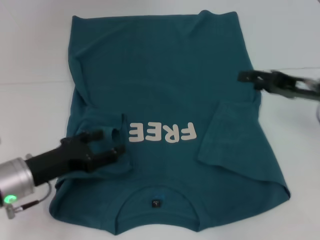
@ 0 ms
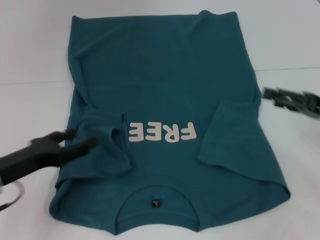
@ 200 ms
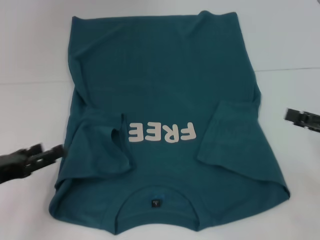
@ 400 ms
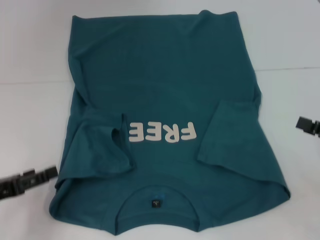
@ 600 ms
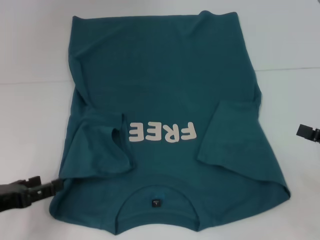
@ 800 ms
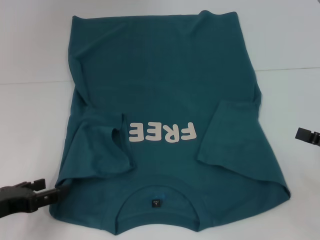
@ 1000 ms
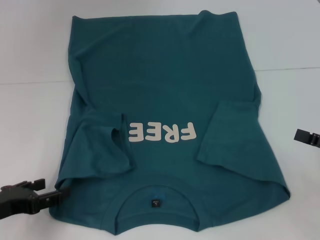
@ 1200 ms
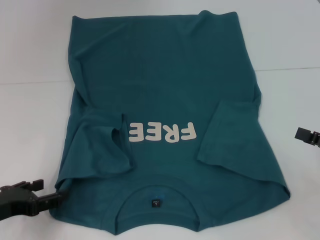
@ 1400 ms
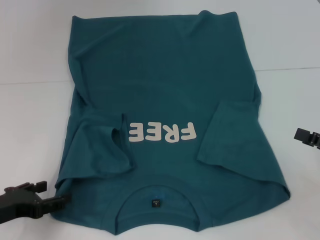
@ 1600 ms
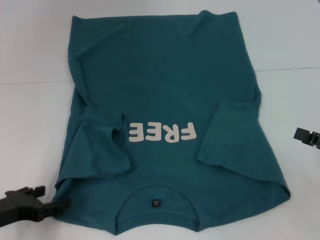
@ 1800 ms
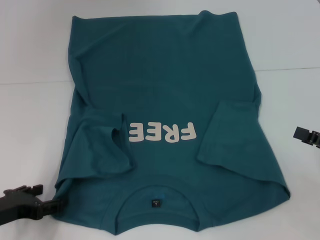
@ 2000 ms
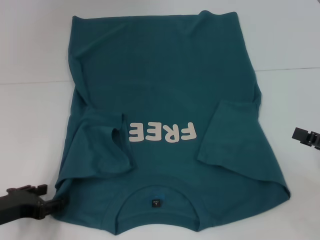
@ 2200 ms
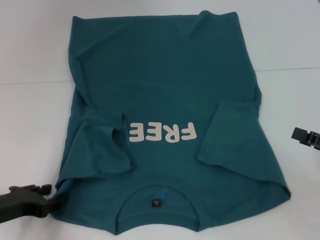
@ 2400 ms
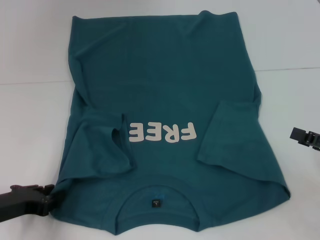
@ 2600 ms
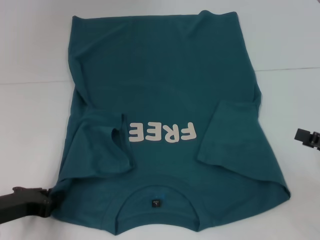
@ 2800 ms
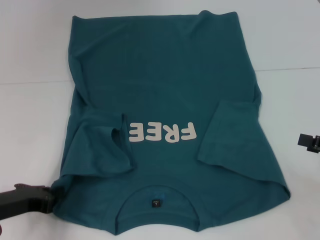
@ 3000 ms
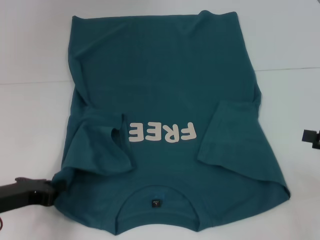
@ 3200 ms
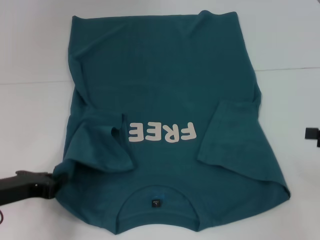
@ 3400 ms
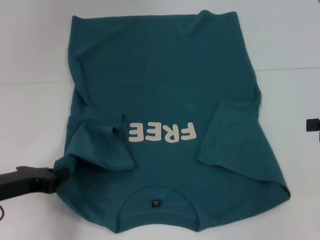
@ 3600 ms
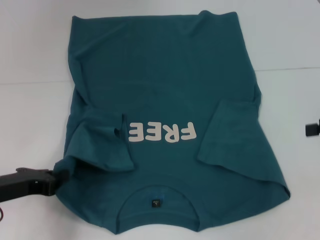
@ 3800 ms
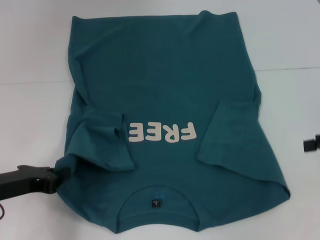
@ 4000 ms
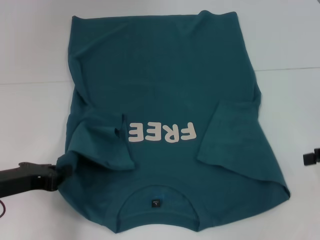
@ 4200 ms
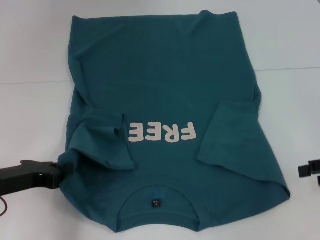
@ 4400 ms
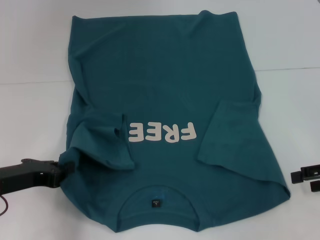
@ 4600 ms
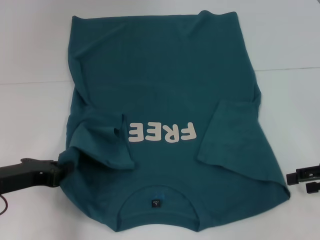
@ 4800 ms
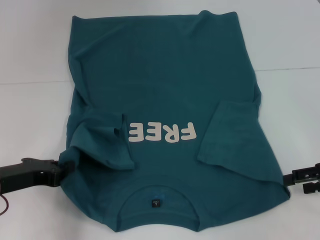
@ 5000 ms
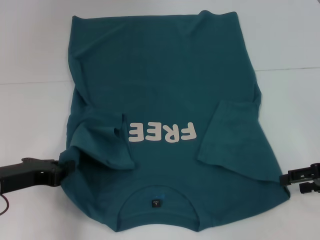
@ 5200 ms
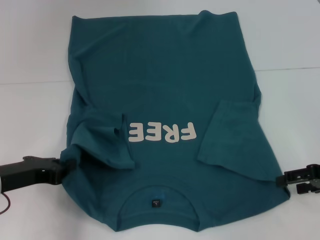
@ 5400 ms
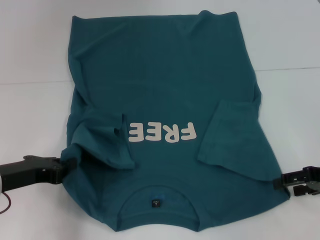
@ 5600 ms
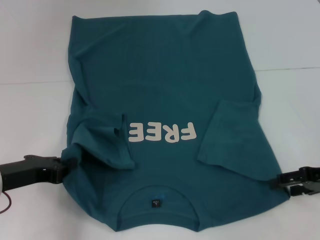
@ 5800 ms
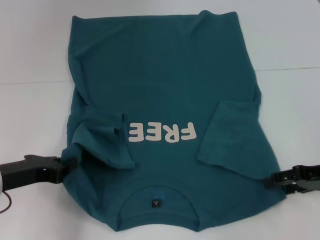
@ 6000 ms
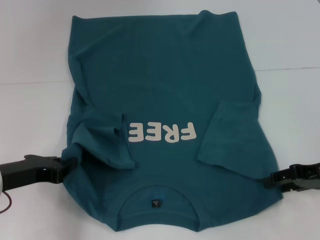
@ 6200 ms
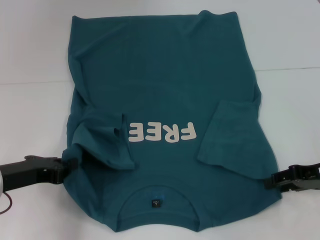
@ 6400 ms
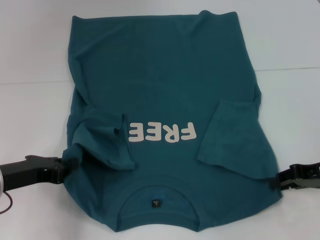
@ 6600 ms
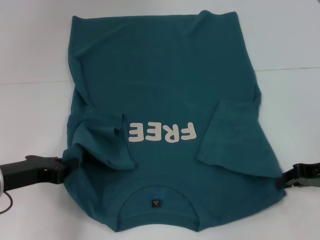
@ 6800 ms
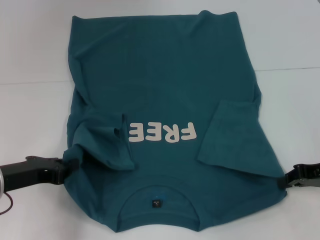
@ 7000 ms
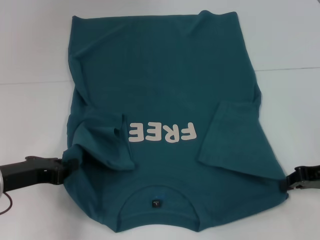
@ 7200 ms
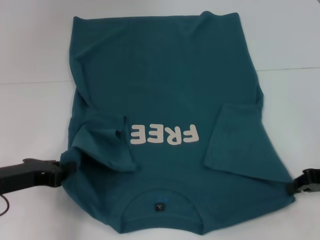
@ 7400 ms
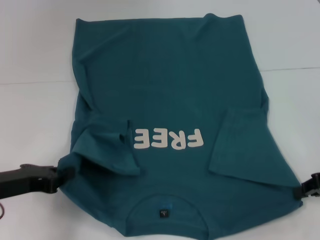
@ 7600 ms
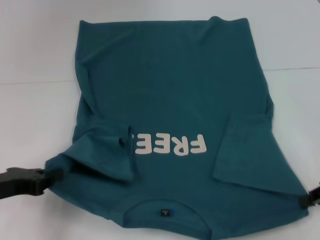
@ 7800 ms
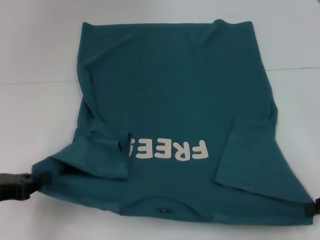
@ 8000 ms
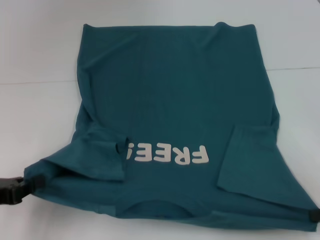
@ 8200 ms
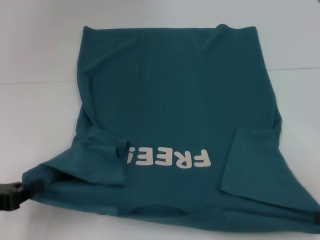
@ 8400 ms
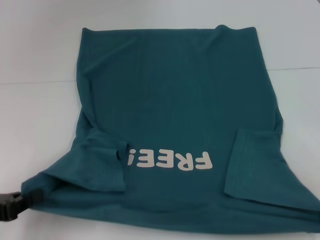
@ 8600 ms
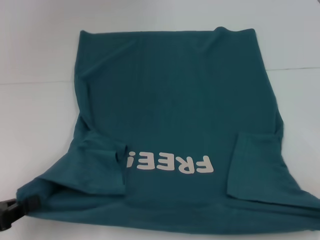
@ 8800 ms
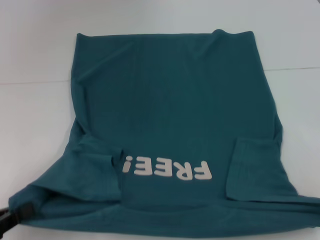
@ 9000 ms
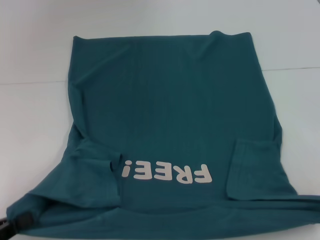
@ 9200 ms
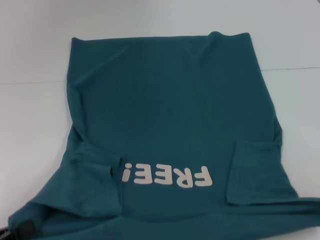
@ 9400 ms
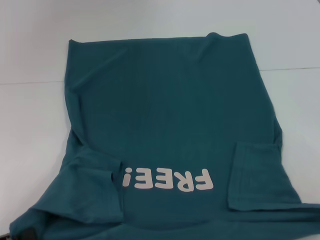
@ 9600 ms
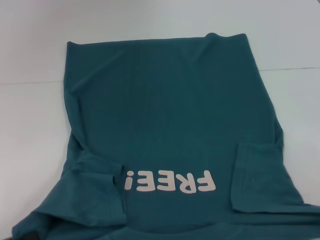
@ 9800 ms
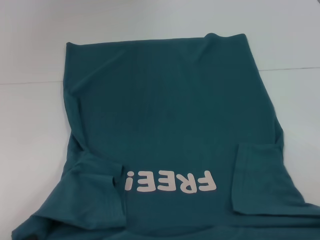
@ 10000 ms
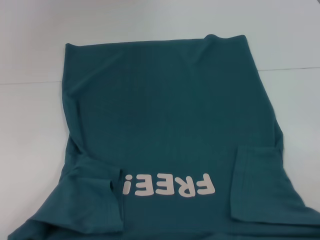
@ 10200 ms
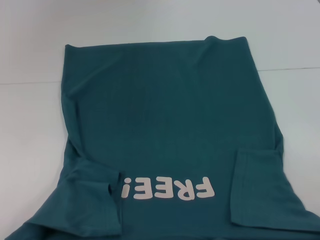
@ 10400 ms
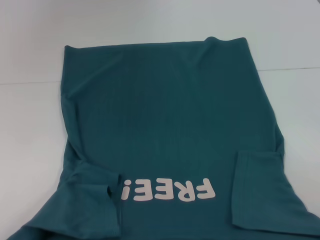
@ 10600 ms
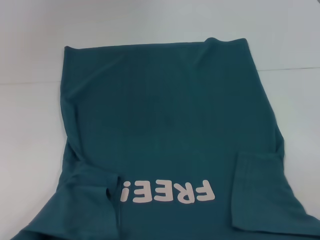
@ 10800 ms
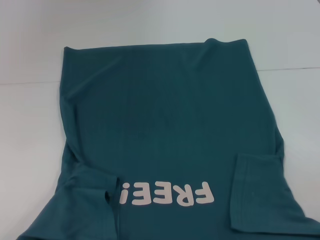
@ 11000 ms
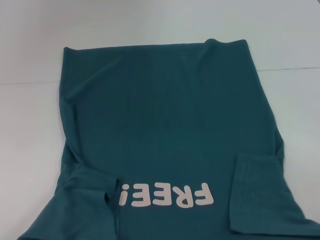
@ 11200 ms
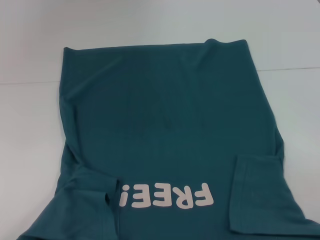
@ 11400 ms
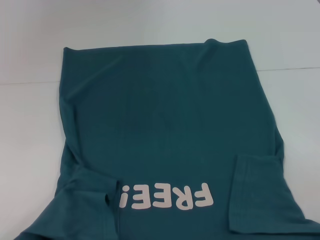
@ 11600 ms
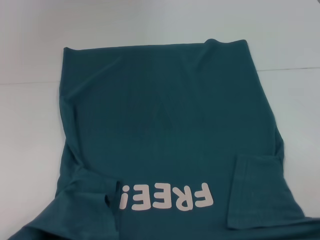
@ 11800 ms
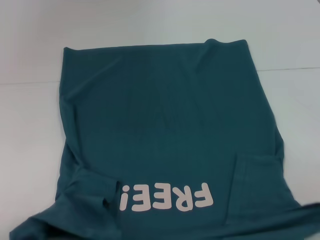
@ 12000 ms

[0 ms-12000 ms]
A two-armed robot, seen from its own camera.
Step, 0 ms to 2800 ms: Grab the bottom left corner with your left hand.
Step, 3000 ms to 7200 ms: Grab the bottom right corner with your right hand.
0 ms to 1600 ms: The left gripper moves to the left and backward, some 10 cm, while the right gripper goes roughly 15 cm backward and to the right.
1600 ms to 3000 ms: The left gripper closes up.
4400 ms to 6000 ms: The right gripper shifts by about 5 cm.
6000 ms to 7600 ms: The right gripper closes up.
7600 ms to 9000 ms: The right gripper shifts approximately 5 cm backward. The left gripper is displaced backward and to the left by roughly 10 cm.
9000 ms to 10400 ms: The left gripper changes place by approximately 5 cm.
10400 ms to 12000 ms: There are only small adjustments of the grippers.

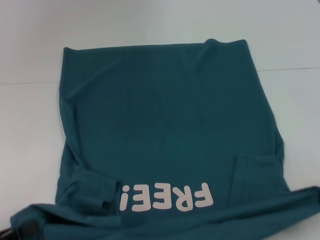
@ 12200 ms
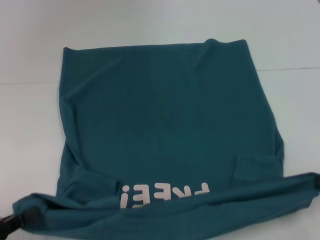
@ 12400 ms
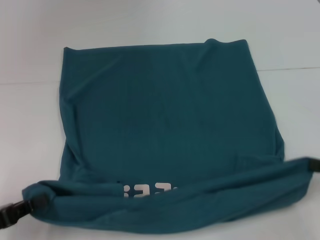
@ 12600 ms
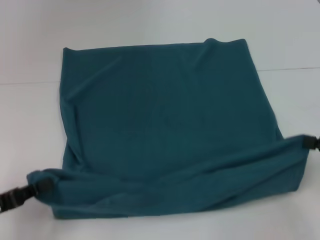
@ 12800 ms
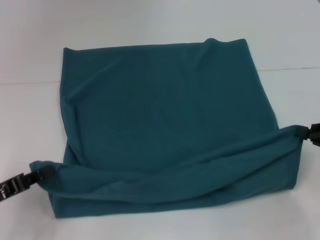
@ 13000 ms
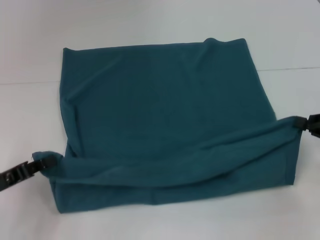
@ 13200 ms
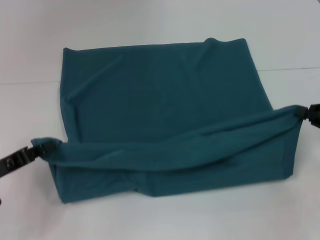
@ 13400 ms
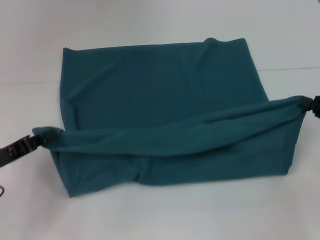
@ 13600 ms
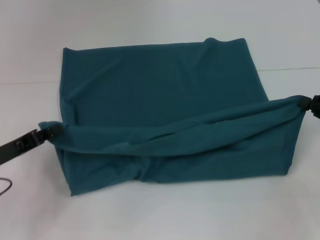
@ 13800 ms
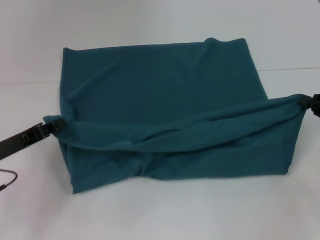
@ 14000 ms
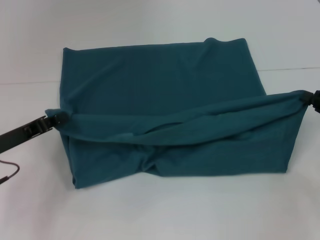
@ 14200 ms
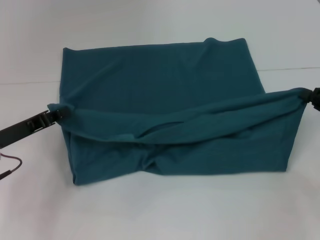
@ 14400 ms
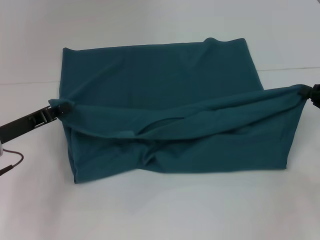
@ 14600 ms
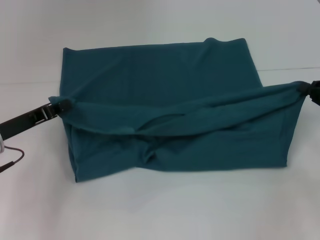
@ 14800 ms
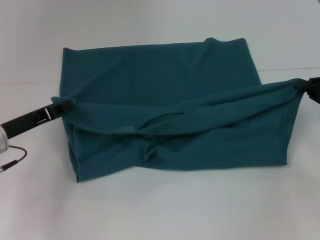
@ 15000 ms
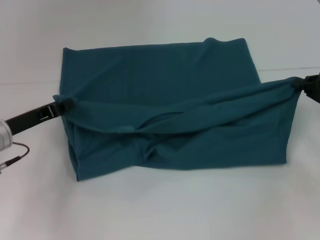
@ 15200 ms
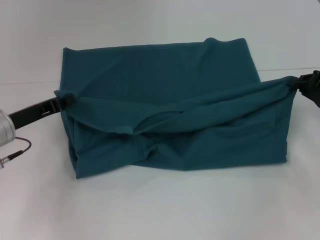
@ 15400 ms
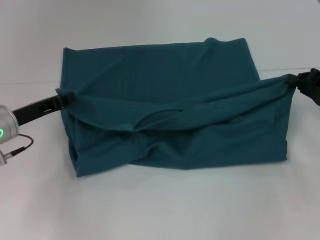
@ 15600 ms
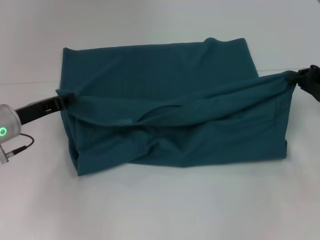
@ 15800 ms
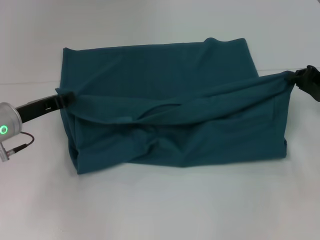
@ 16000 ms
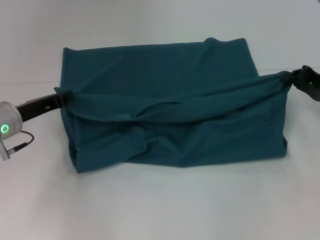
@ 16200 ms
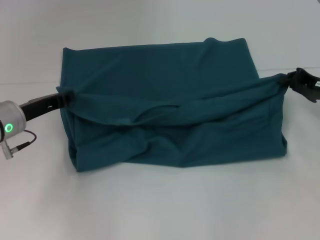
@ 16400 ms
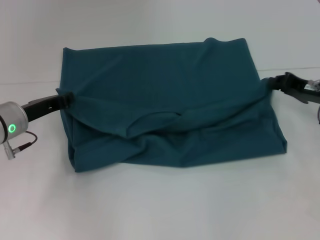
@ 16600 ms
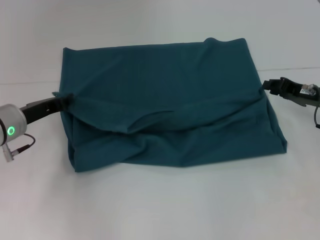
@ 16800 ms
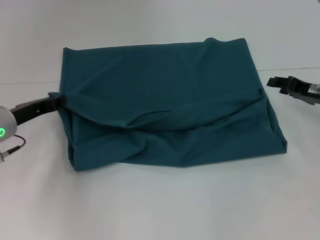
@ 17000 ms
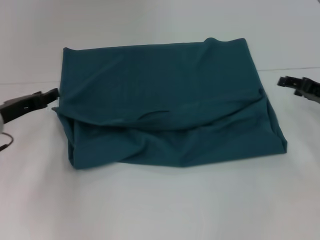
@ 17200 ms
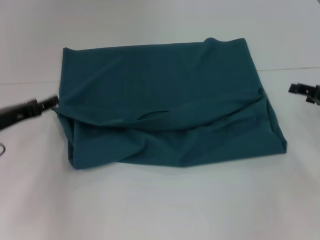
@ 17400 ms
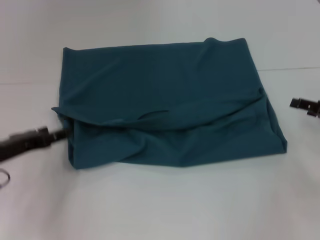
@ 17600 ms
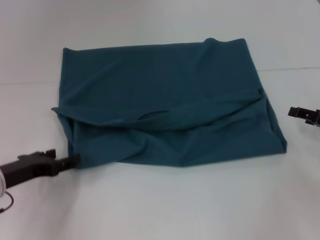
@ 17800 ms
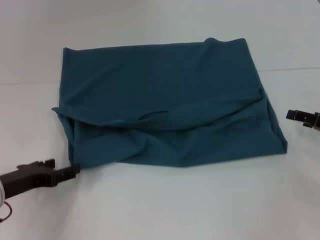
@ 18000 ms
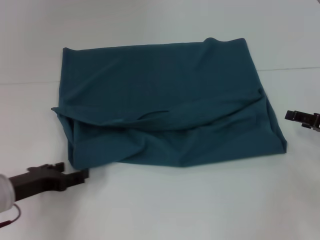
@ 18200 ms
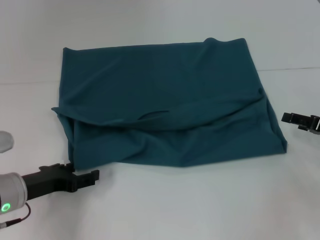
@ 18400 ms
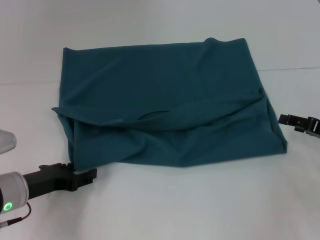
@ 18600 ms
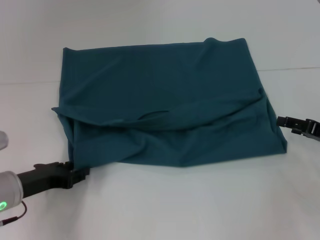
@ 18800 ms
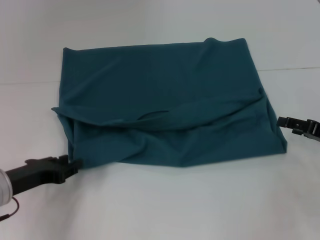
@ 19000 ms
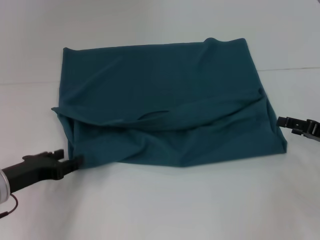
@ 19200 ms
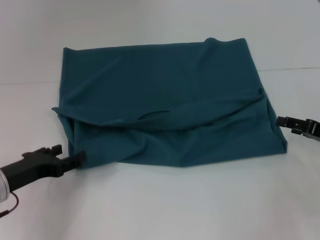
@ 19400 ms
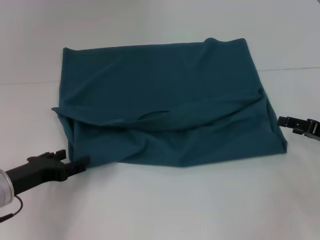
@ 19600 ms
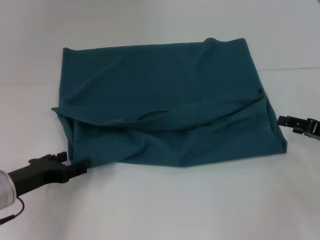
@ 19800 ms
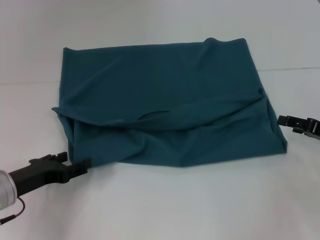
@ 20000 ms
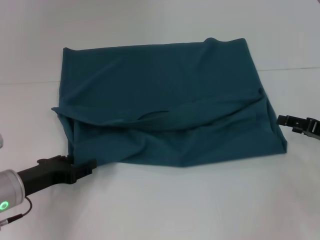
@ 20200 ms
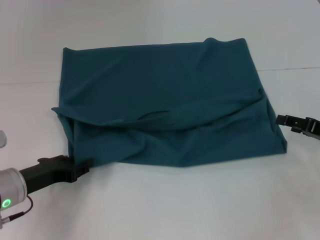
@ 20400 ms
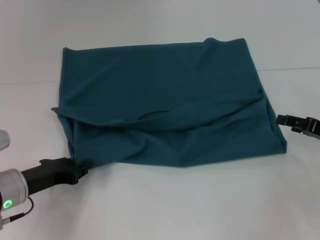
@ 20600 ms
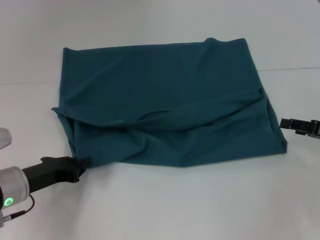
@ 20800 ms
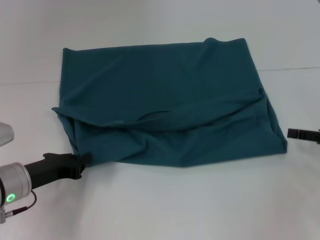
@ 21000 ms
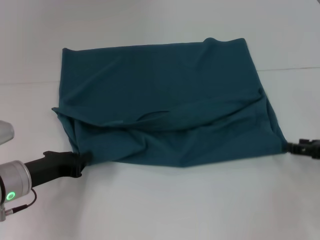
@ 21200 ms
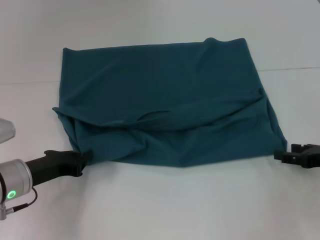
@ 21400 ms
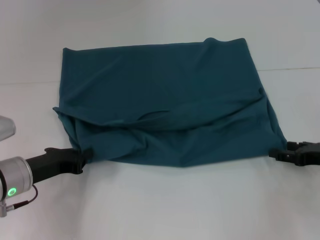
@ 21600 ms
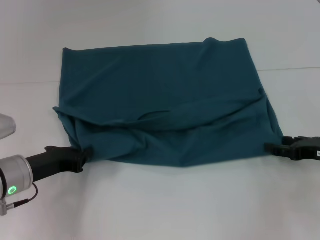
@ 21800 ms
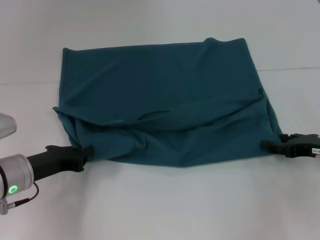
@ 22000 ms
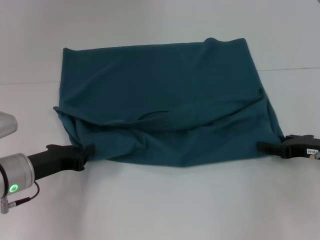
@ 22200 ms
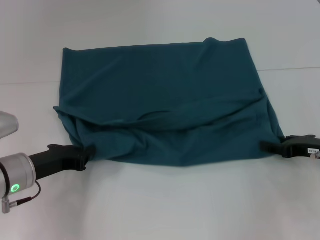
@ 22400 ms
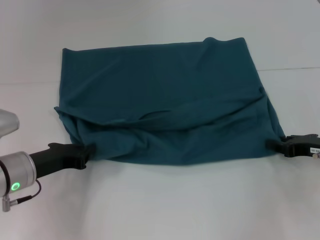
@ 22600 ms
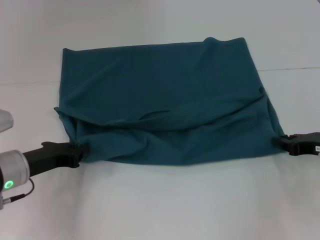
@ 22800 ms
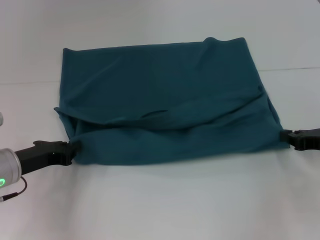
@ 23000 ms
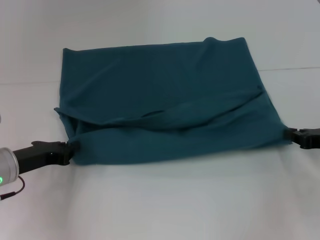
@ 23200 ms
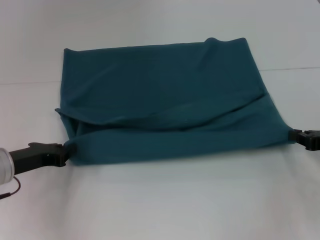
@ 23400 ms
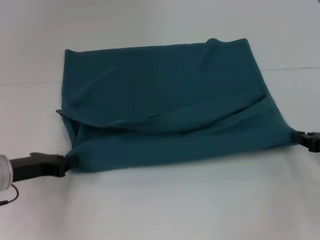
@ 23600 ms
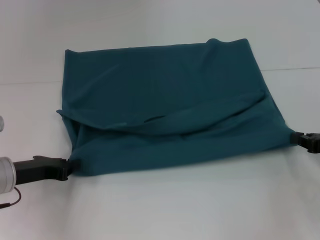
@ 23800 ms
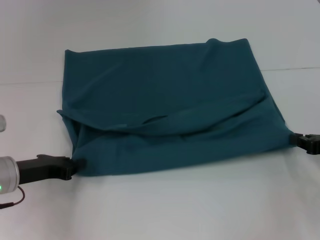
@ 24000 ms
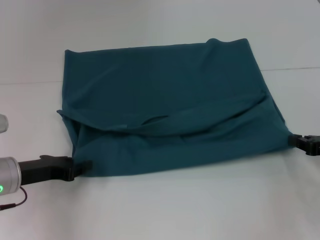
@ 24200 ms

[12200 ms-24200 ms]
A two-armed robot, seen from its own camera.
Step, 12200 ms to 17000 ms: Fold the clothes to the left.
Step, 12200 ms to 17000 ms: Fold the clothes to the right.
12200 ms to 13800 ms: Both grippers move forward, some 10 cm.
13800 ms to 15200 ms: The left gripper is displaced forward by approximately 5 cm.
15200 ms to 16600 ms: The right gripper changes place by approximately 5 cm.
16600 ms to 18200 ms: The two grippers go some 10 cm backward. The right gripper opens up. Meanwhile the left gripper opens up.
18200 ms to 19800 ms: The left gripper closes, then opens again.
19800 ms to 21200 ms: The left gripper closes.
21200 ms to 22600 ms: There are only small adjustments of the grippers.
22600 ms to 24200 ms: The right gripper closes.
